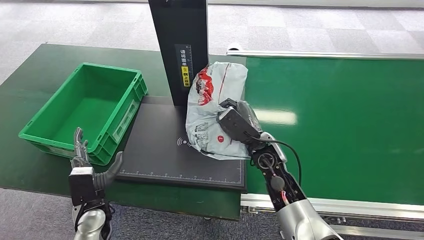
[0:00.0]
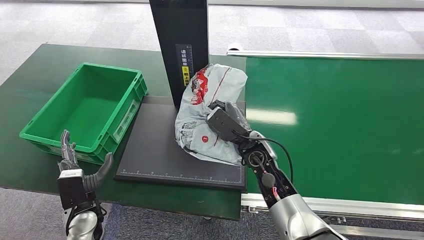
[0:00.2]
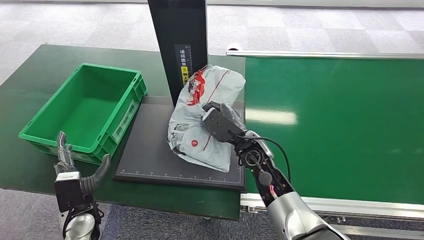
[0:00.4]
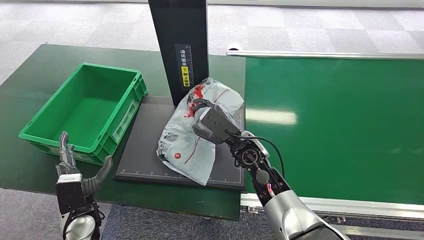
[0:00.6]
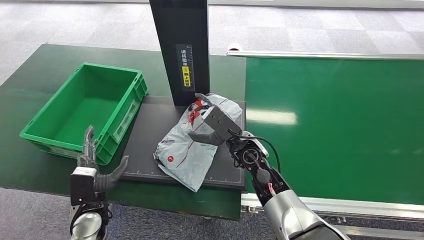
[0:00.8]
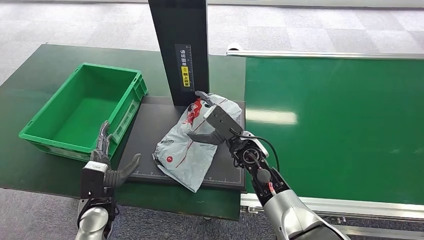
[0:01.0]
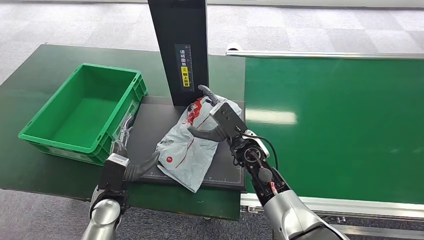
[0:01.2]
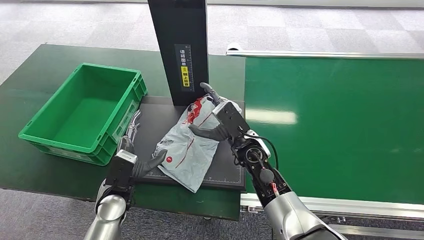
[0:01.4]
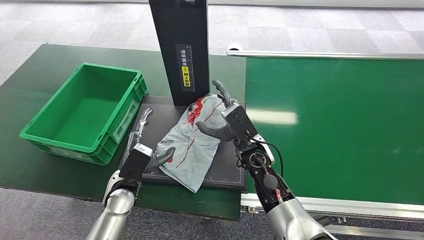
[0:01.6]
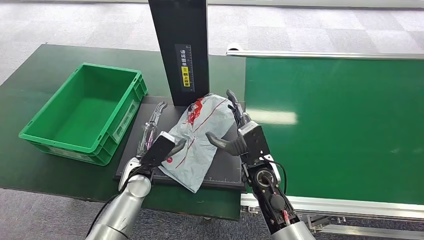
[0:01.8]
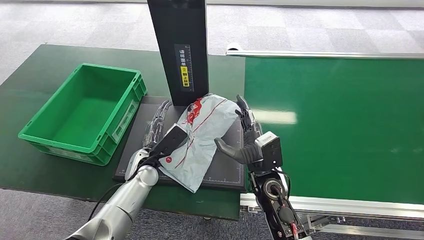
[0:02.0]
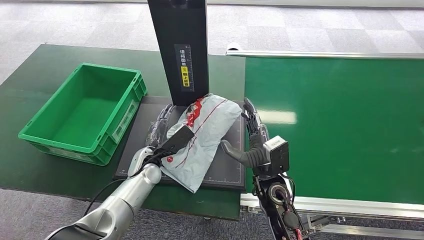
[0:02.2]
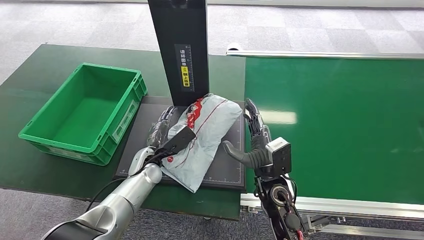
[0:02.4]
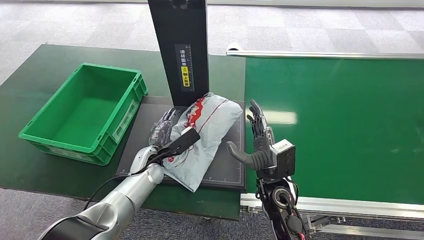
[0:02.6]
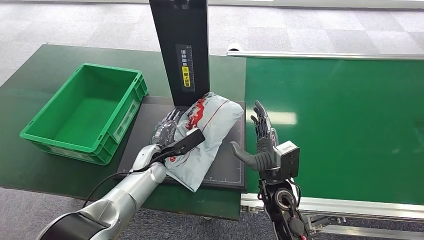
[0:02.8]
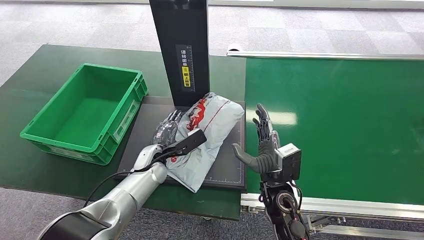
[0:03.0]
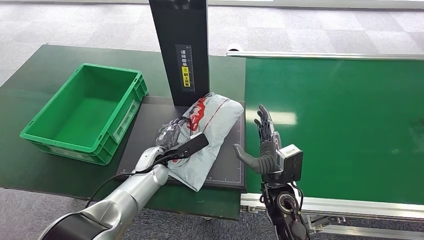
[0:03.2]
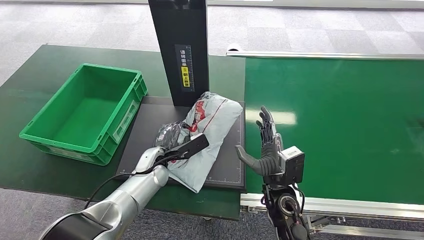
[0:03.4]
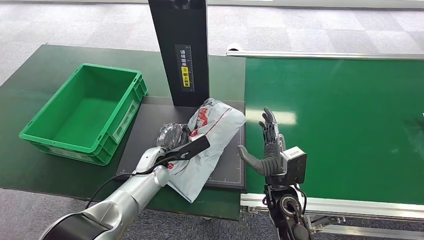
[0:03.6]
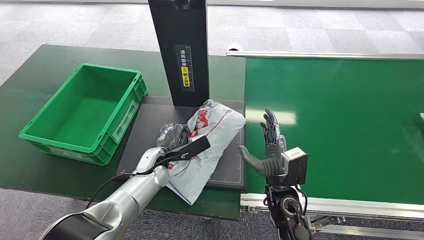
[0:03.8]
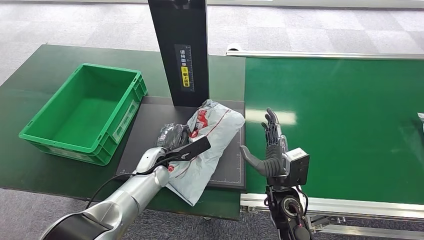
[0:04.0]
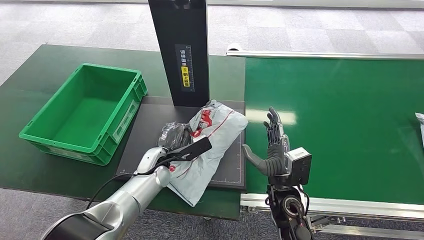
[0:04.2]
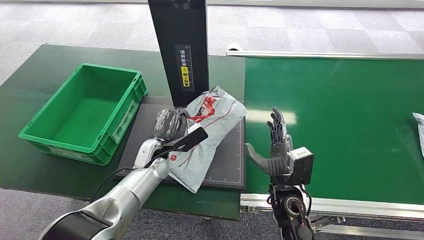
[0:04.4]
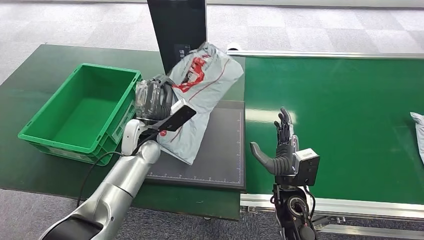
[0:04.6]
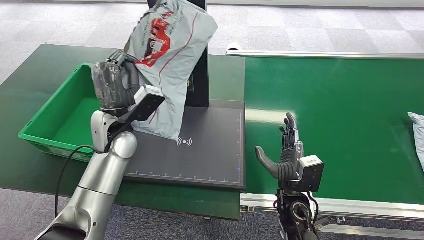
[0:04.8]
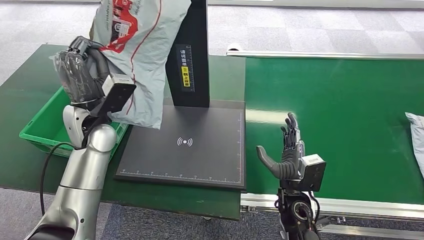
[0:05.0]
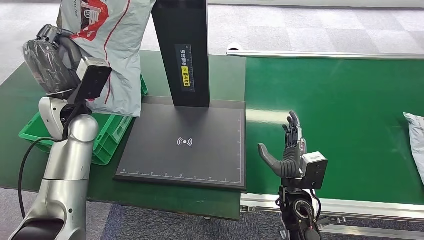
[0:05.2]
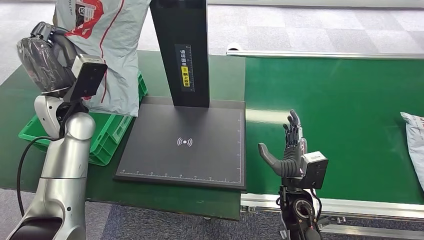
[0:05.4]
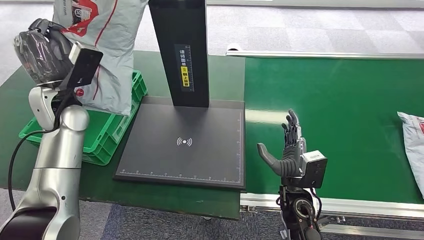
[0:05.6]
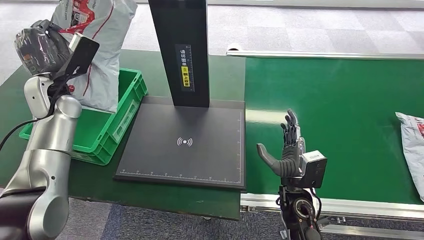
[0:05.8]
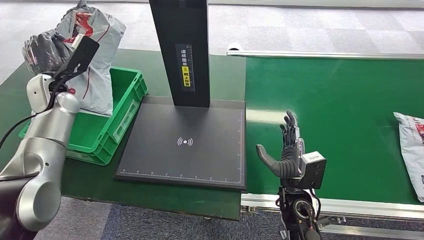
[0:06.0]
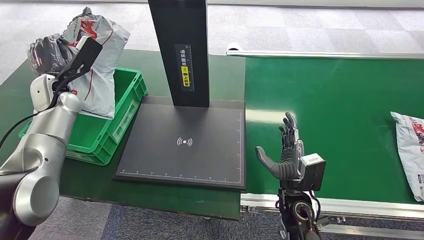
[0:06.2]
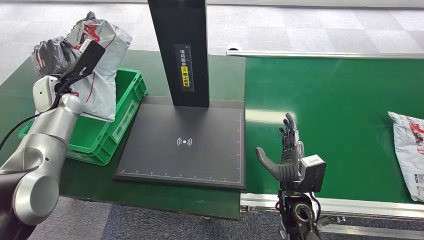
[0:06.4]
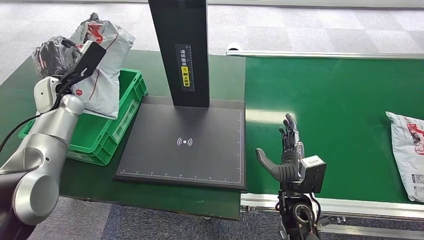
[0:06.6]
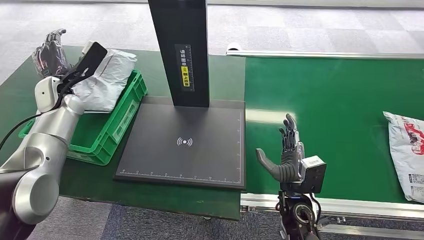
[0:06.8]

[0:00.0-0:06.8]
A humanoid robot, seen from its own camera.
Step, 0:00.0 to 0:02.0: Place the package onto the inbound machine.
Step, 0:02.2 to 0:05.0: Pick up the package from the inbound machine.
Step, 0:05.2 to 0:06.6: Place the package into the parcel locker.
0:00.0 to 0:01.4: The left hand heads to the right, covering roughly 5 cm.
0:01.4 to 0:02.8: The left hand shifts some 10 cm forward. Meanwhile the right hand travels backward and to the right by about 10 cm.
0:02.8 to 0:04.0: There are only small adjustments of the hands.
